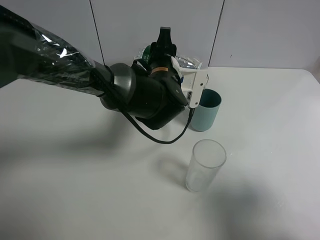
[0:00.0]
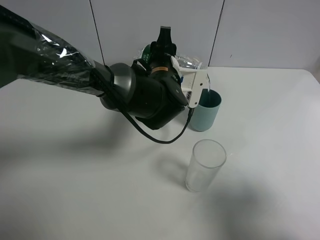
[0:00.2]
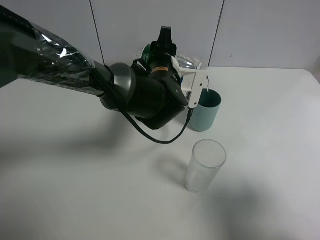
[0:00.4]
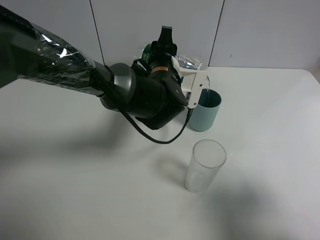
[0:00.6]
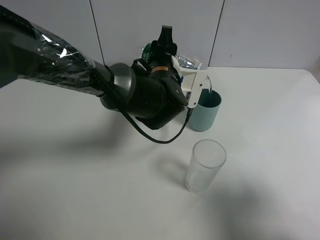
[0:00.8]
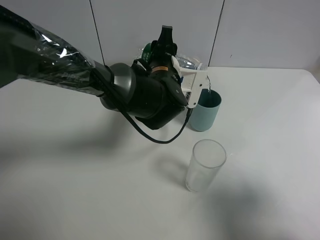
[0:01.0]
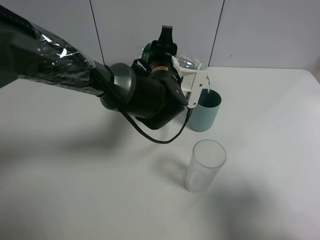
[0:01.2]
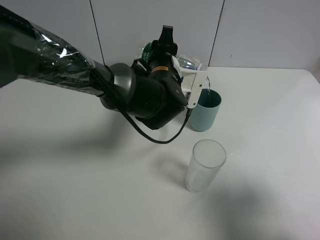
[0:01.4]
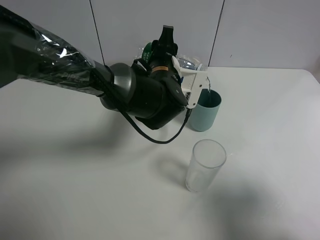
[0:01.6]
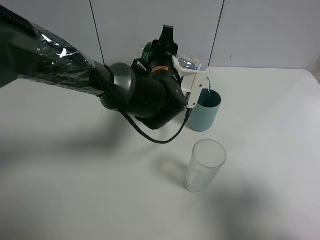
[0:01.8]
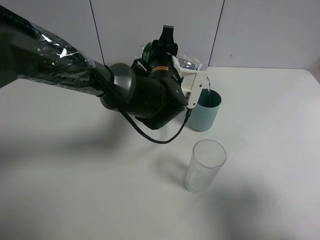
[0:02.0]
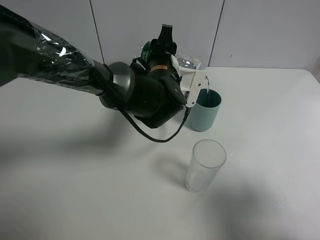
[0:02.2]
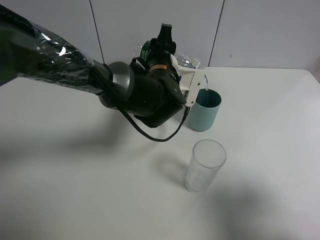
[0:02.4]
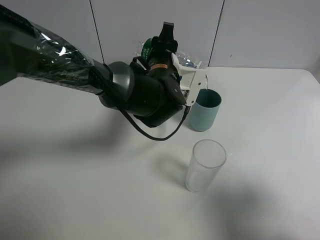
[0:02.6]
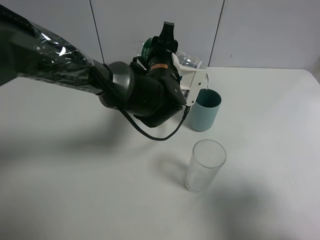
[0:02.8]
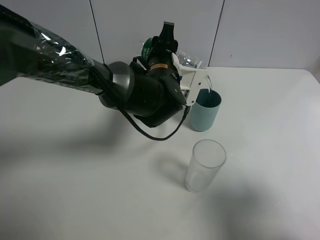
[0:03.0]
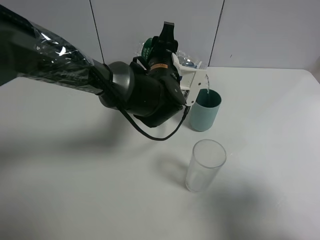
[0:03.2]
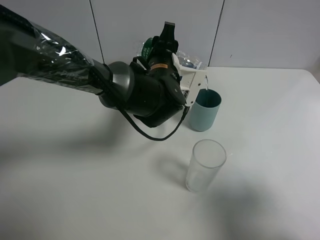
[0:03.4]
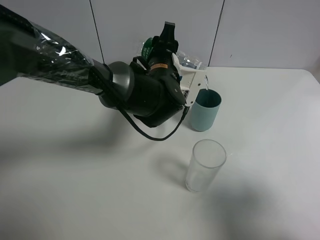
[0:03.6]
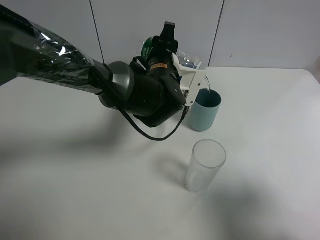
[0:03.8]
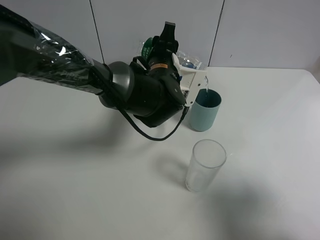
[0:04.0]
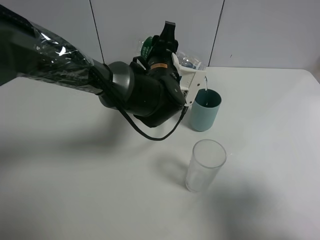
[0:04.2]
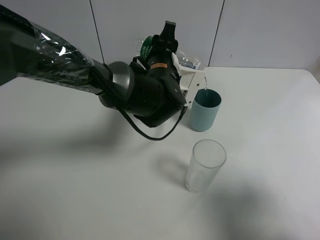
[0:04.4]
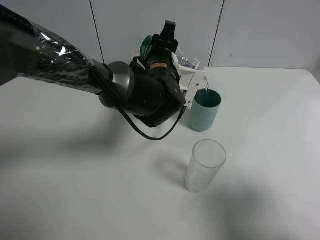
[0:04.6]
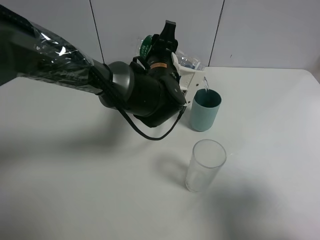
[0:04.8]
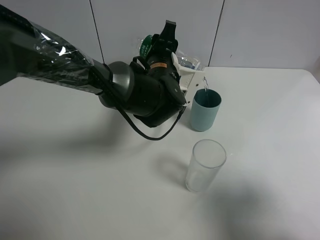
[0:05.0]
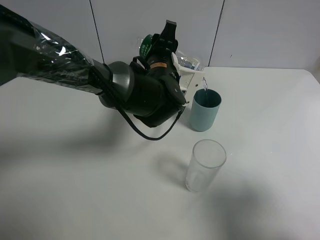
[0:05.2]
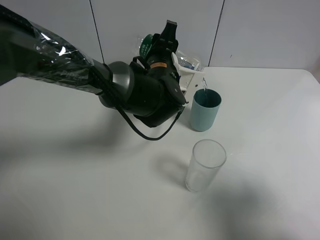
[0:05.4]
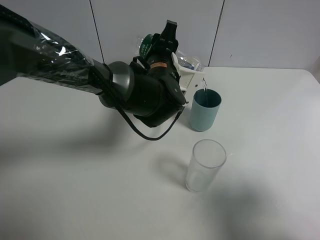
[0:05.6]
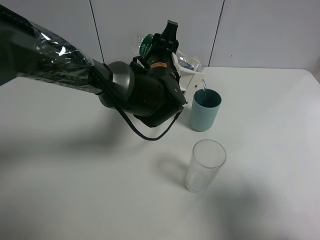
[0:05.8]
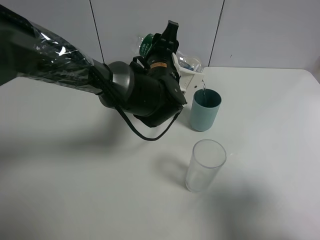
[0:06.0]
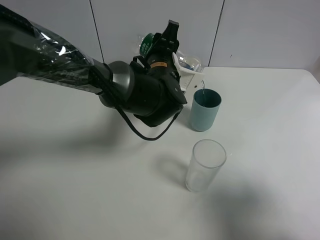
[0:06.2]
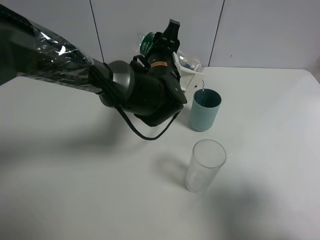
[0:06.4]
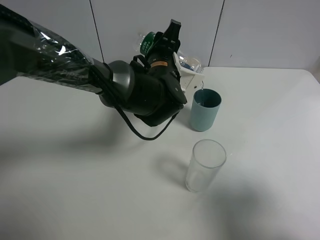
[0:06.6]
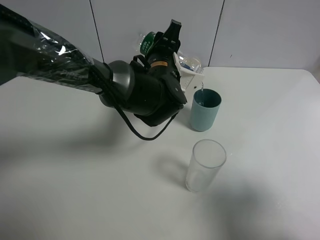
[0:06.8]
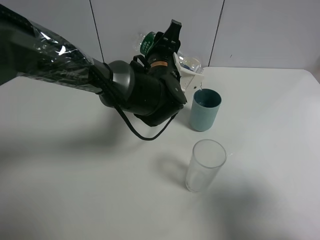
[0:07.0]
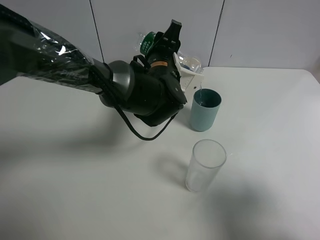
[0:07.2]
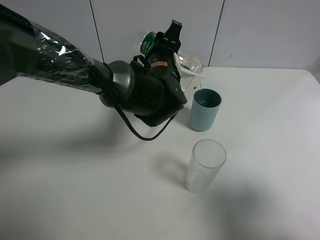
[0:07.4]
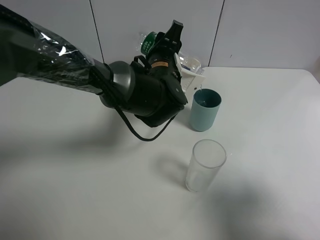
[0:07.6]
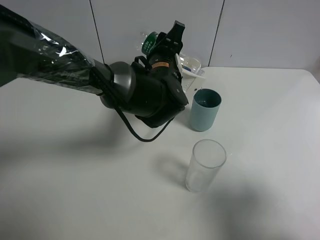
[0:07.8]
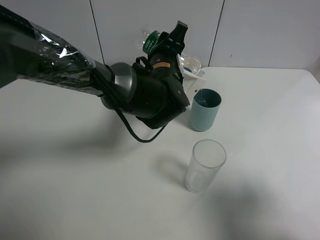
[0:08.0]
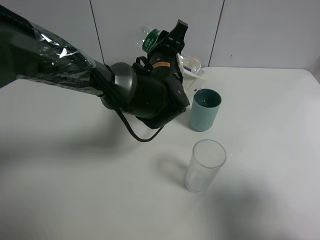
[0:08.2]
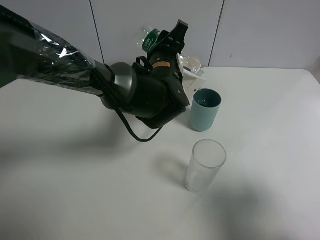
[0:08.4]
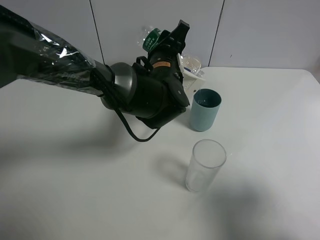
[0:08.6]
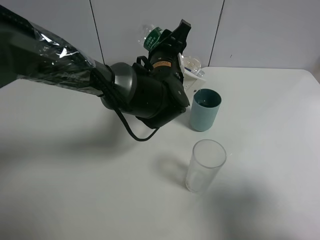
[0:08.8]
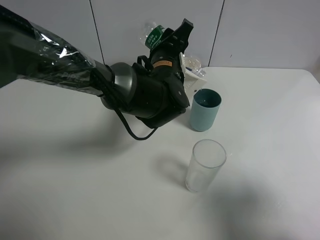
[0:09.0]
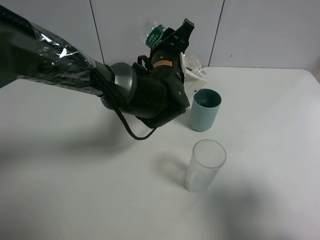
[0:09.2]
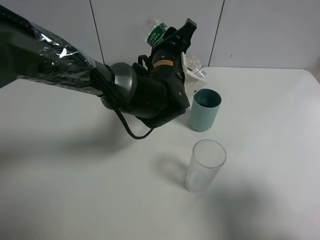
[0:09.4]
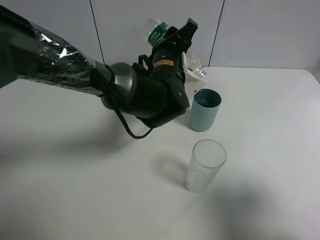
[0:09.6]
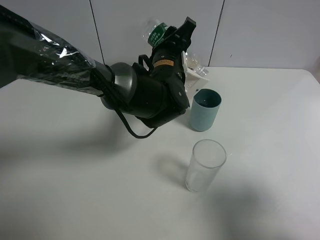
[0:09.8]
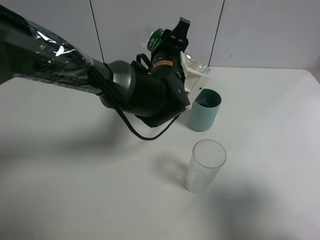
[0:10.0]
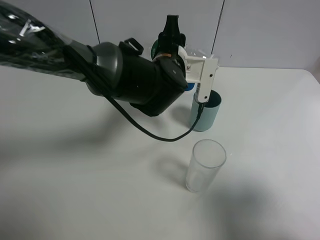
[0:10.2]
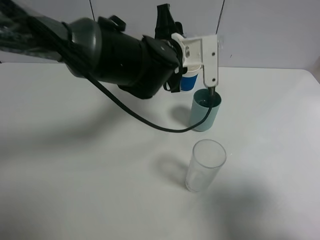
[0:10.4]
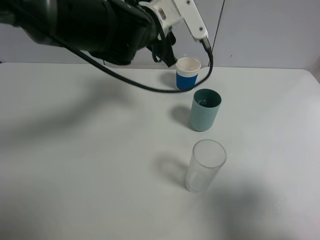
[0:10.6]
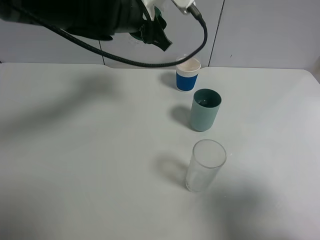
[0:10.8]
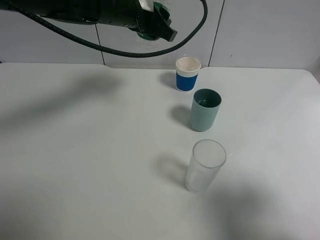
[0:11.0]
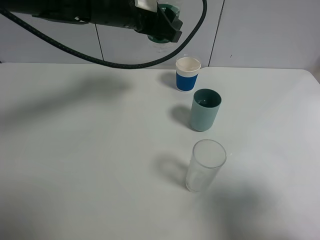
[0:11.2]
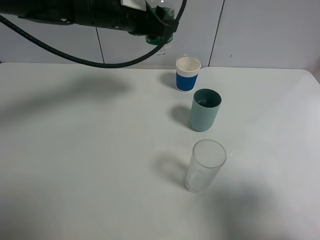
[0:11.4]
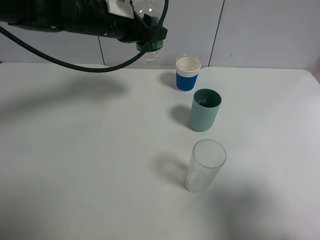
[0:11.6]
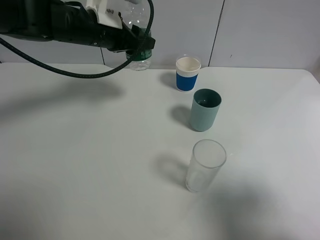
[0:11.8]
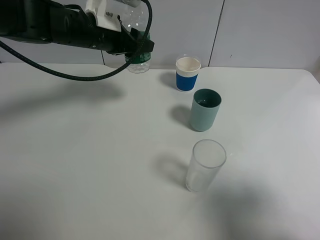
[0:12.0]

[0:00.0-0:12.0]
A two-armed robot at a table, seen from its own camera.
Task of the whole recording: use a gripper to hold the bottle of the drink and pour it into a random cup.
Step, 0:00.0 to 0:10.2: Pour the mineral water into the glass with the left gripper.
0:00.0 to 0:01.6: The two grippers keep their place.
0:01.6 to 0:03.0: The two grippers keep their place.
0:03.0 to 0:04.4: The two grippers keep their place.
0:04.4 to 0:06.0: The grippers make only small movements.
0:06.0 to 0:07.6: The two grippers keep their place.
0:07.6 to 0:09.0: The grippers stay close to where they were, moving slightly.
0:10.4 to 0:12.0: The left gripper shifts about 15 cm to the left.

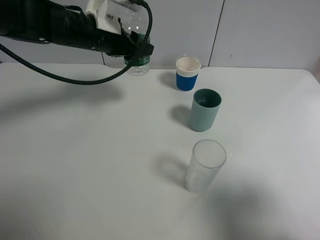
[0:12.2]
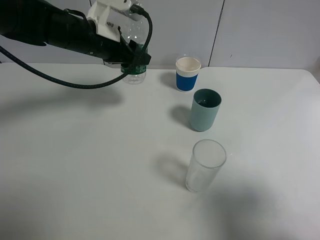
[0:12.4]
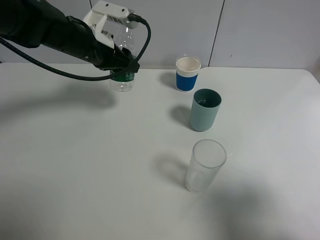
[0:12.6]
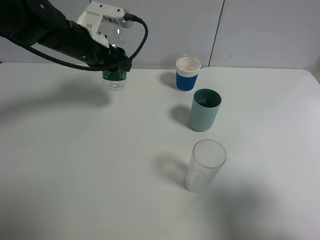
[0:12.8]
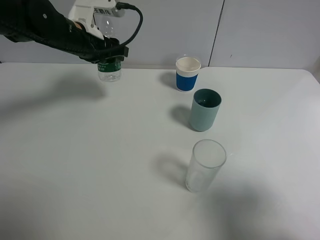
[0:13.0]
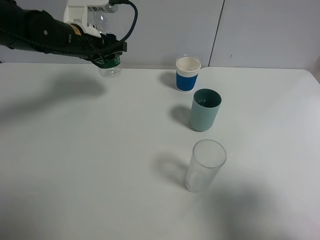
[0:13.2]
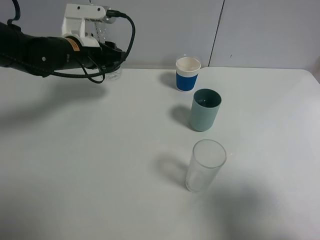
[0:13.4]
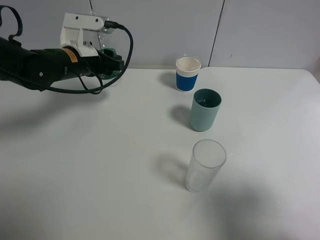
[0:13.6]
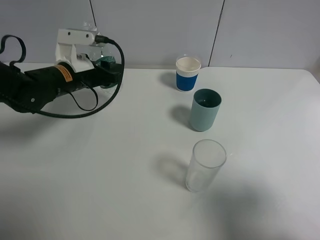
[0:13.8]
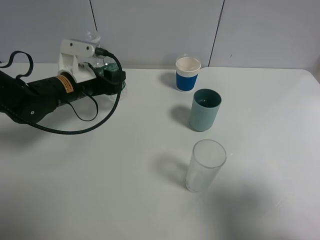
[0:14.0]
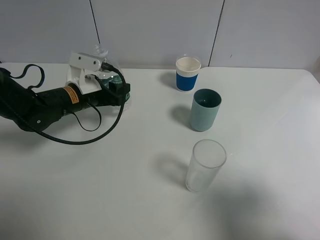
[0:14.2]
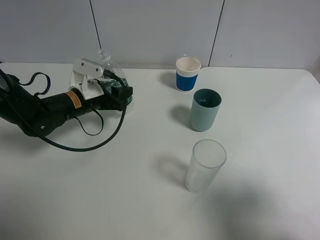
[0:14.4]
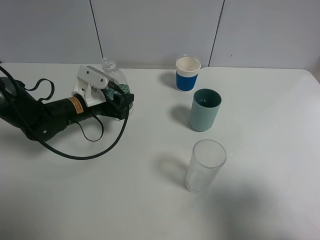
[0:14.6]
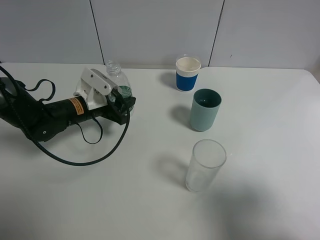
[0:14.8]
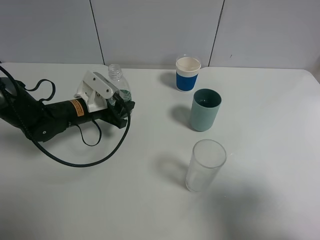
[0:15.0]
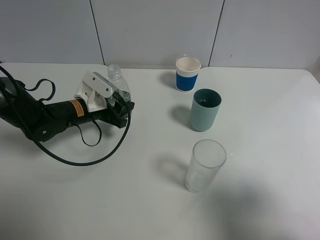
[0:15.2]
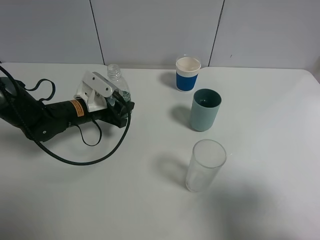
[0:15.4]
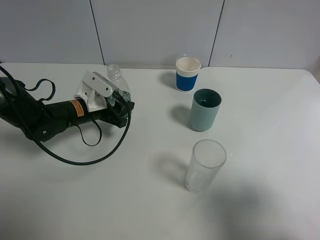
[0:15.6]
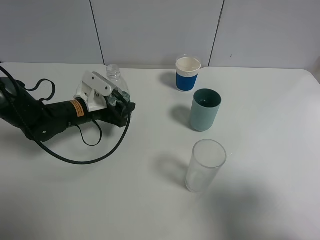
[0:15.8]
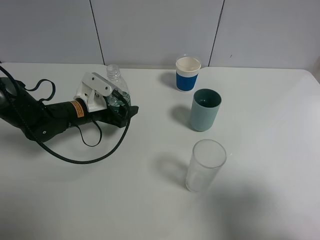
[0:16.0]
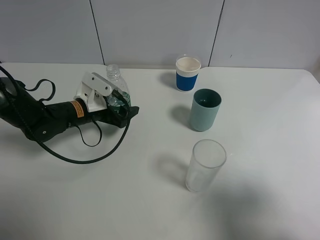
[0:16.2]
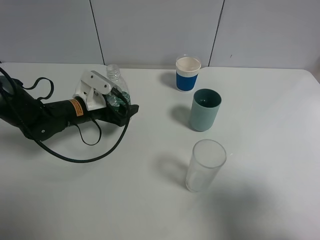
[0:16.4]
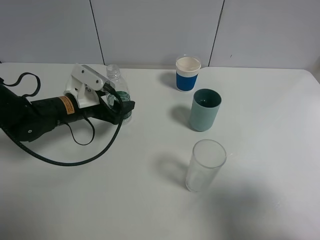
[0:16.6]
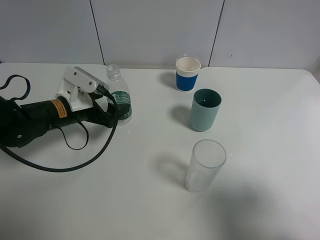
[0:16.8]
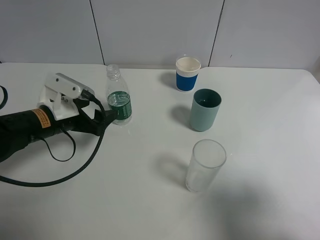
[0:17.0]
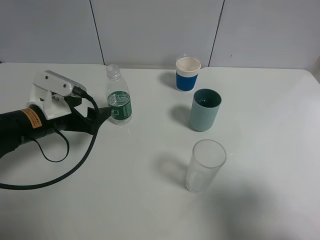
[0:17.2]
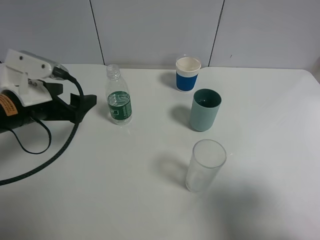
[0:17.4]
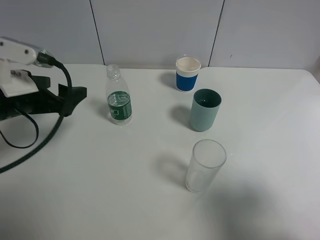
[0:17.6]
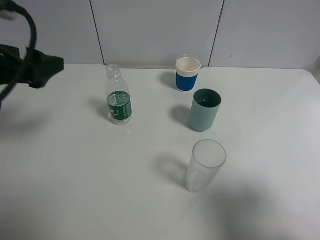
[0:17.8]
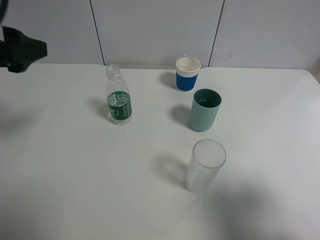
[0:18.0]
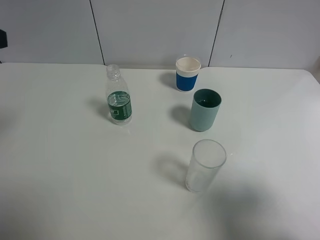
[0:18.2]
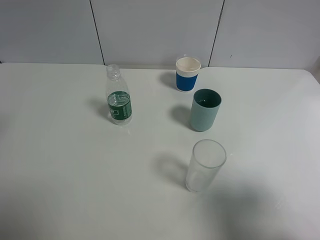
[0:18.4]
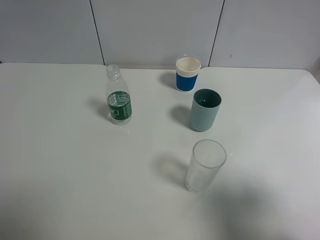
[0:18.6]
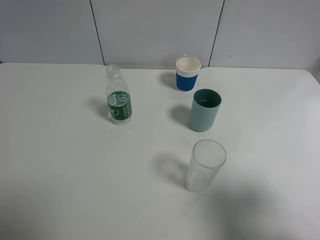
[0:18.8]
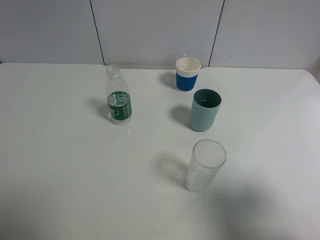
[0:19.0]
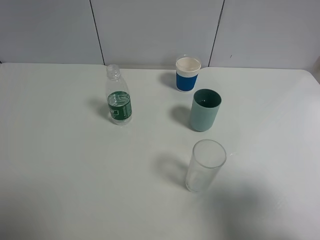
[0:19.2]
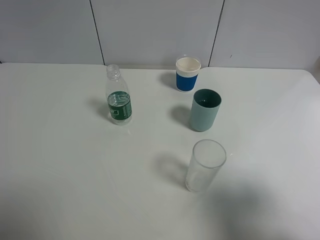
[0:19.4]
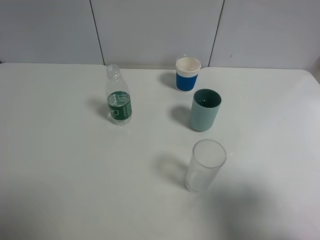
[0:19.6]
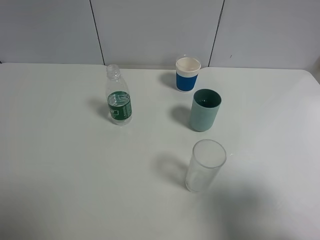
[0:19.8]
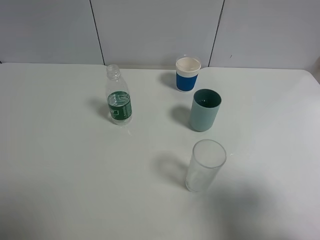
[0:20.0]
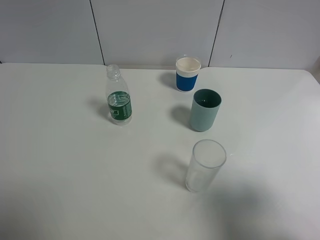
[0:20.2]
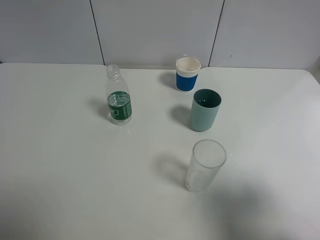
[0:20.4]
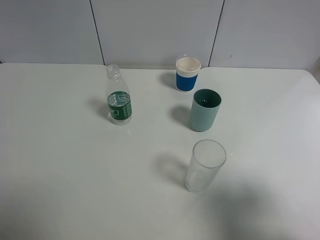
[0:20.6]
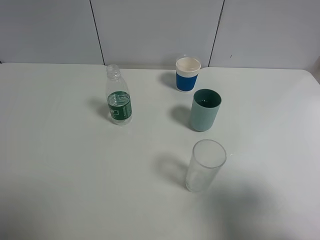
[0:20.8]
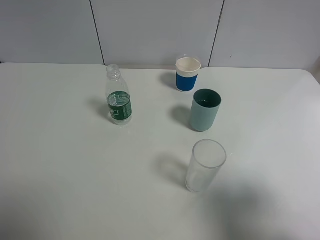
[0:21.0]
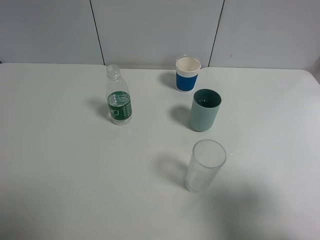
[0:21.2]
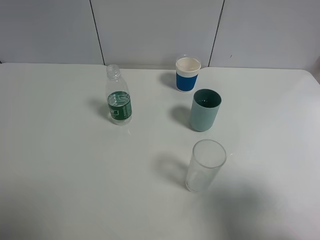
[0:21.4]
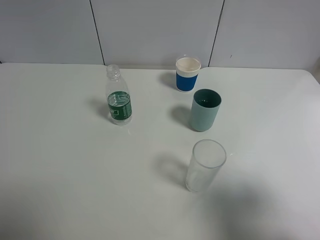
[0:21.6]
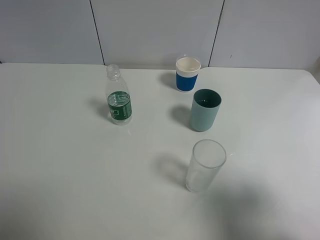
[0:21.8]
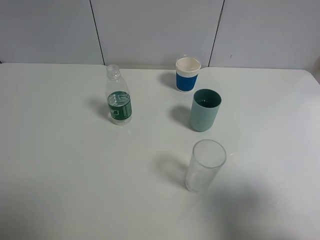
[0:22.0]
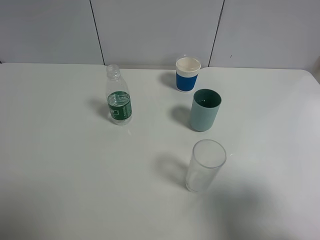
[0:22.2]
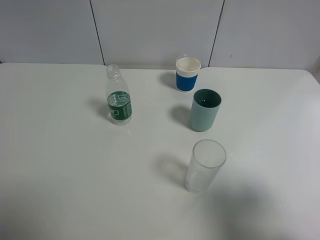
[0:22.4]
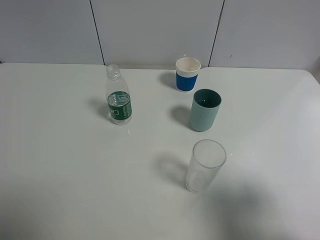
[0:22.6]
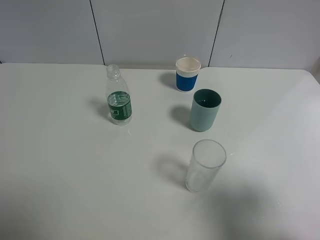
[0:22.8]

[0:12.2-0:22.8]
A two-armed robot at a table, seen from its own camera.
Task of the whole recording: use a gripper to hold the bottle of the drink and pour it into a random cup.
Step, 0:12.2 to 0:16.0: Place the mineral water bottle on the table with the left gripper.
0:12.2 to 0:13.8: The left gripper heads downward, covering some 5 cm.
0:13.8 to 0:15.2: The left gripper is displaced downward by about 10 cm.
0:15.2 to 0:16.8: The left gripper shifts by approximately 5 cm, and opens.
0:16.8 to 0:18.2: The left gripper heads upward and backward, covering roughly 25 cm.
0:21.2 to 0:22.8: Neither gripper changes place.
